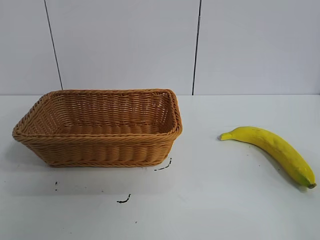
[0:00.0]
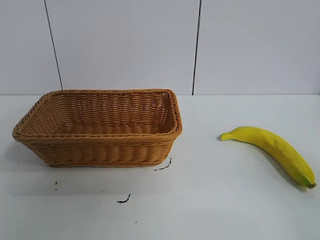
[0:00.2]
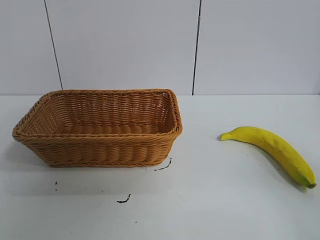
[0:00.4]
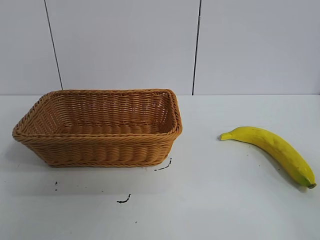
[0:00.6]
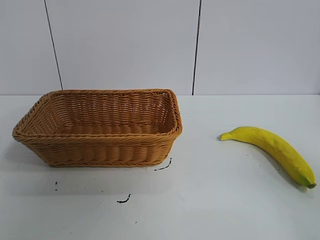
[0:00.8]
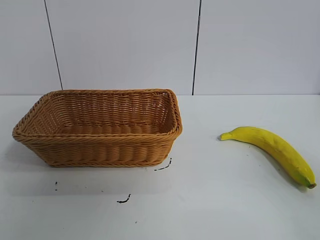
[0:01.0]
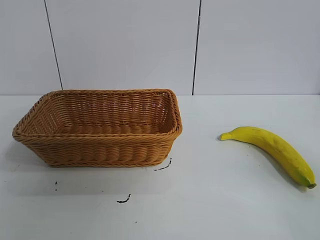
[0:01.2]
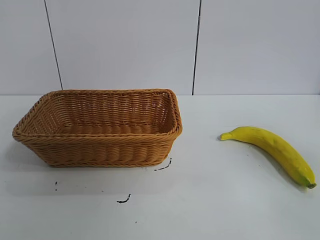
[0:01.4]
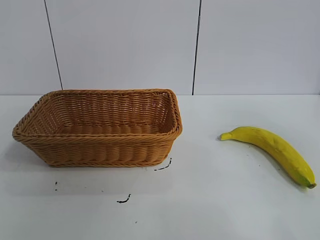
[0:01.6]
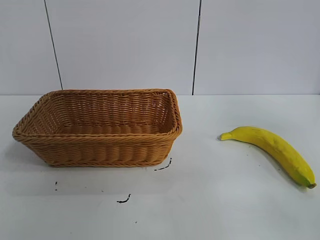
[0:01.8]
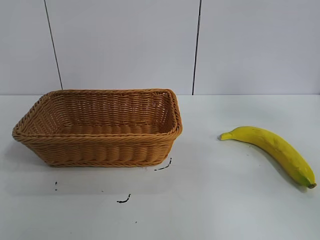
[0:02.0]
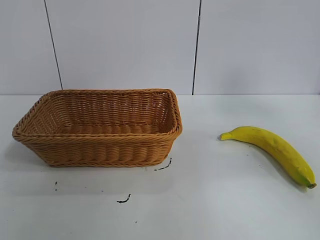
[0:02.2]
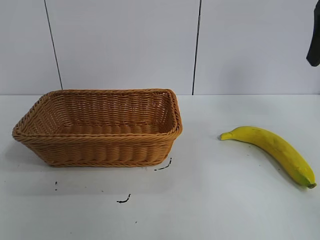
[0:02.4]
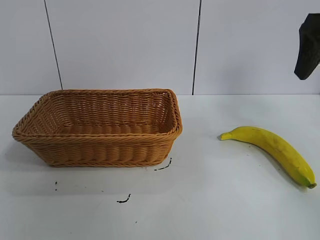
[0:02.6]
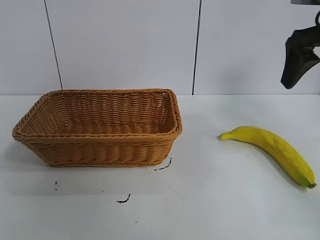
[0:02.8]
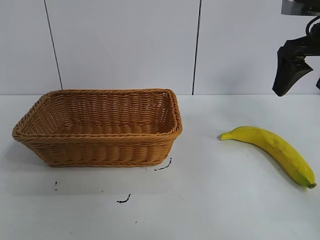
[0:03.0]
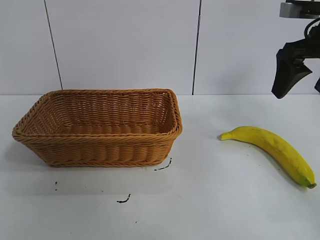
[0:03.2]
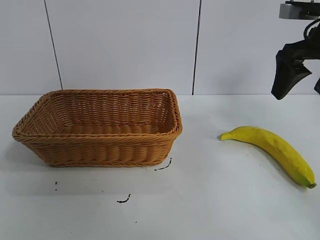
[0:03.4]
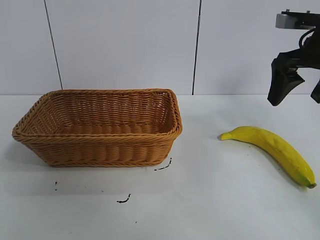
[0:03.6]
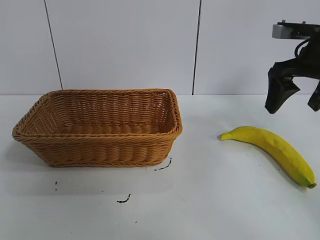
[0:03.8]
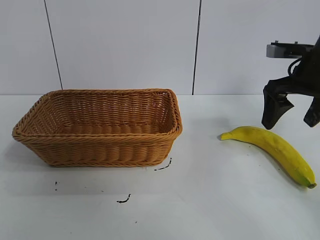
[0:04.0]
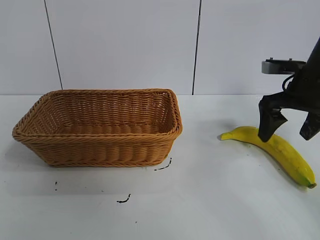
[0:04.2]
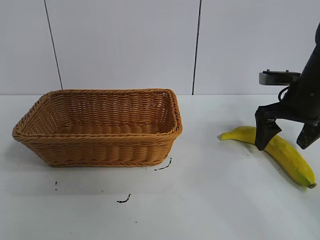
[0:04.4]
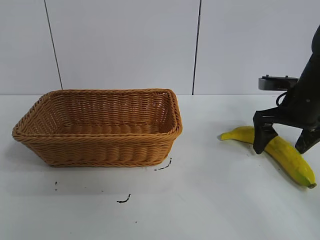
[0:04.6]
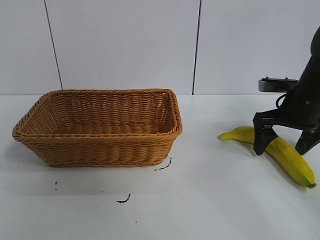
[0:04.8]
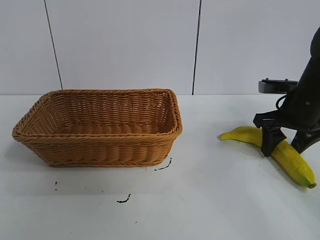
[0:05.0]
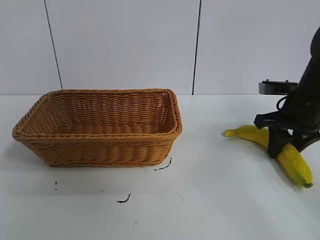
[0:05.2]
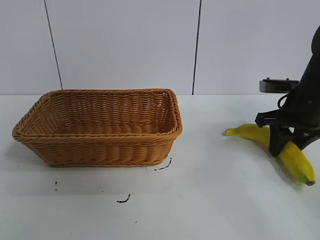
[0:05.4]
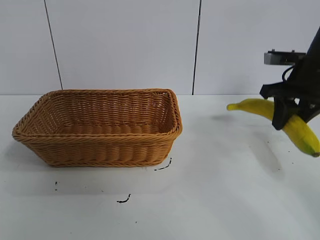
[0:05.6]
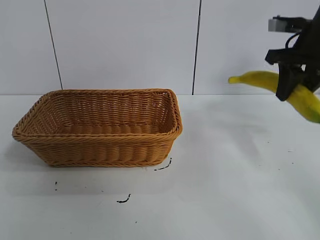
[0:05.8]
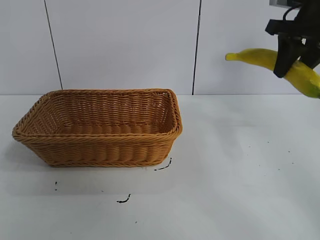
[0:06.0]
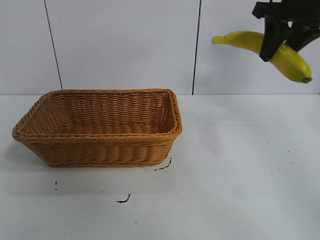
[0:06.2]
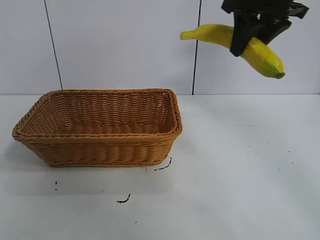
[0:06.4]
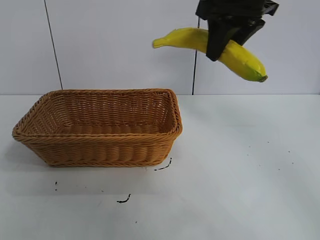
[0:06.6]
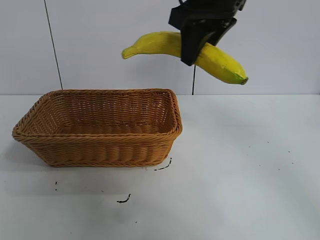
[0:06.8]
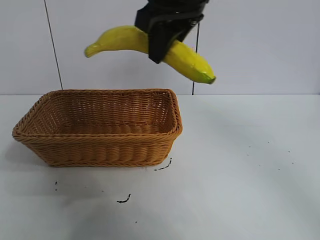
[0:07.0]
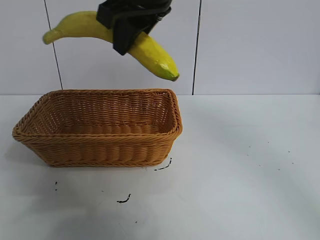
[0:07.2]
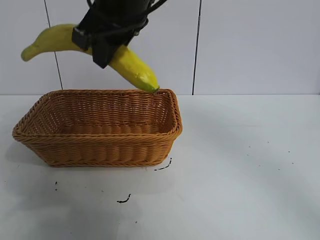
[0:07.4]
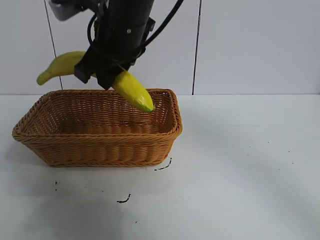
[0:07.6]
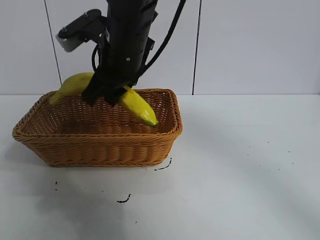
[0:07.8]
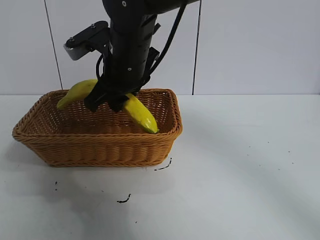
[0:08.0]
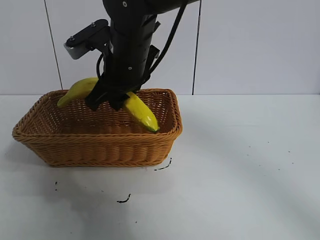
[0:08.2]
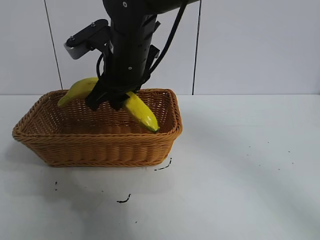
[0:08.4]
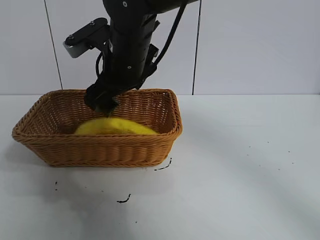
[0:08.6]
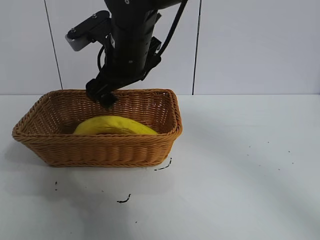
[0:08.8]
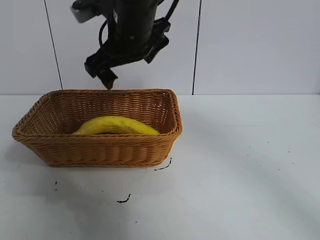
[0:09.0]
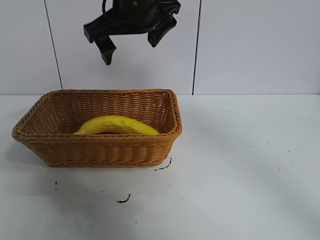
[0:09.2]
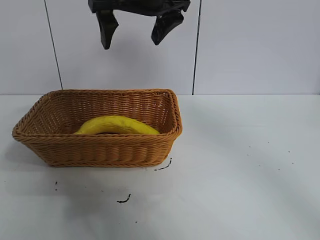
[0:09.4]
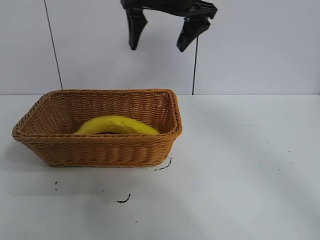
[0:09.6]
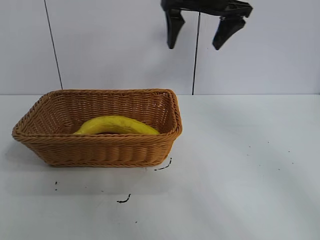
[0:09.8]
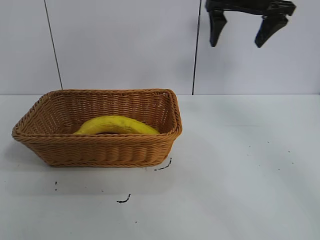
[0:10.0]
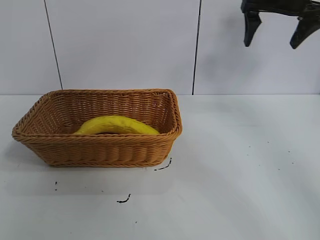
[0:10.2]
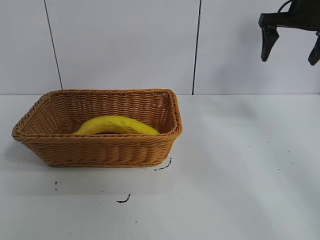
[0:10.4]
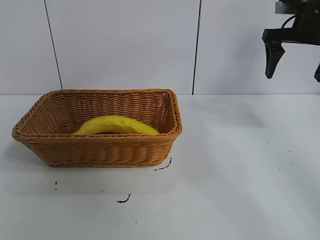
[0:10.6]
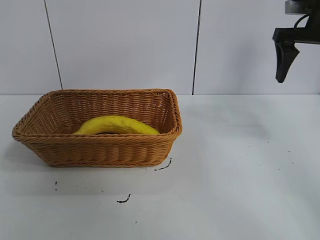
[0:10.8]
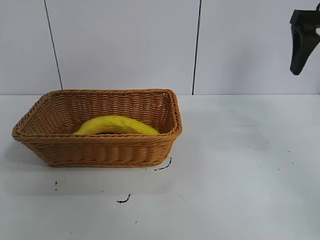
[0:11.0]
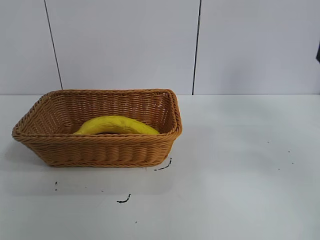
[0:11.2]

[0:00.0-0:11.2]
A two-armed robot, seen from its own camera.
Task of the whole recording: pick up the banana and put it into the basket.
Step, 0:01.0 to 0:05.4: Grasp the banana with right gripper.
Step, 0:05.6 to 0:08.6: Place the banana in the basket with right gripper.

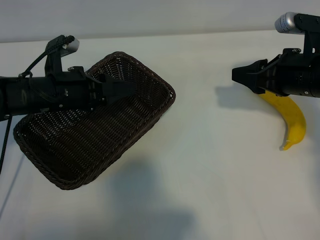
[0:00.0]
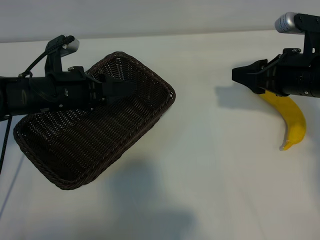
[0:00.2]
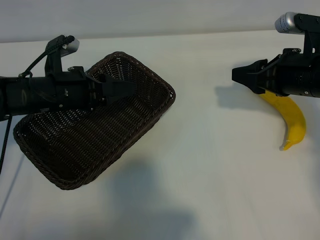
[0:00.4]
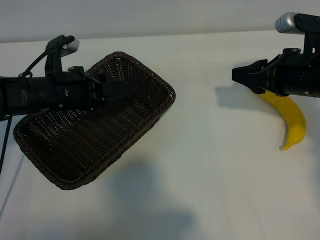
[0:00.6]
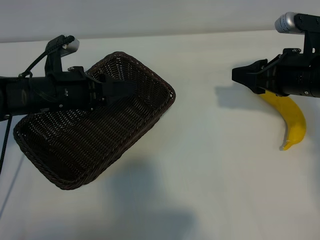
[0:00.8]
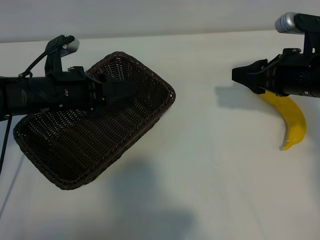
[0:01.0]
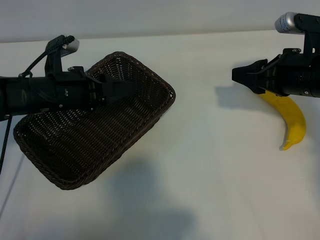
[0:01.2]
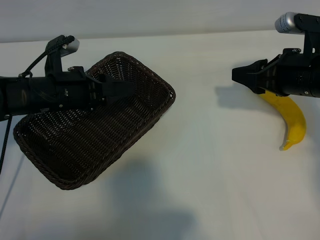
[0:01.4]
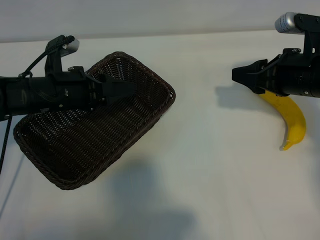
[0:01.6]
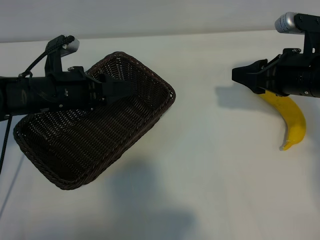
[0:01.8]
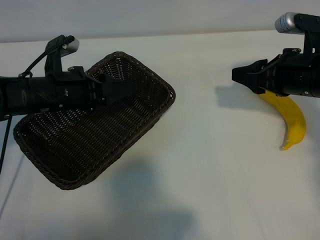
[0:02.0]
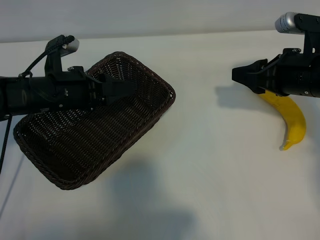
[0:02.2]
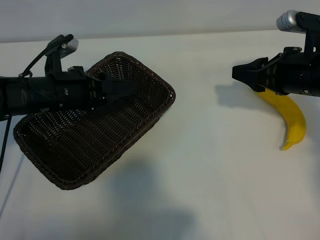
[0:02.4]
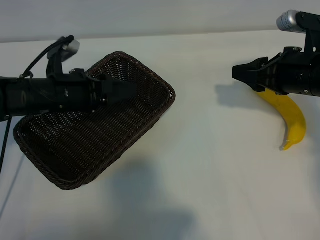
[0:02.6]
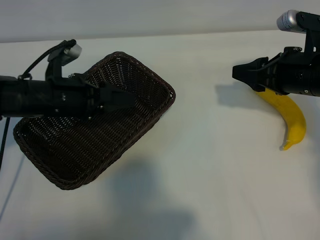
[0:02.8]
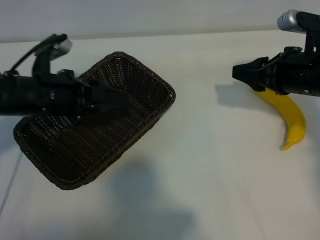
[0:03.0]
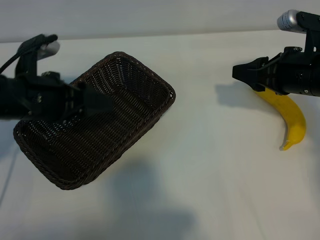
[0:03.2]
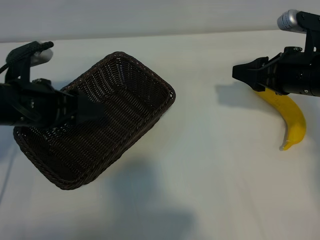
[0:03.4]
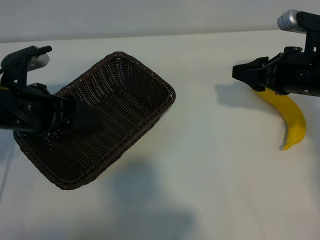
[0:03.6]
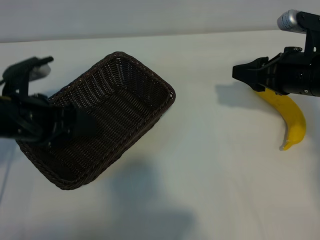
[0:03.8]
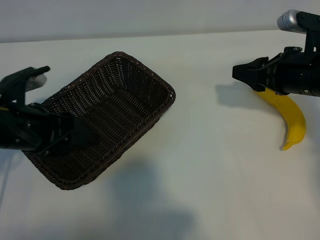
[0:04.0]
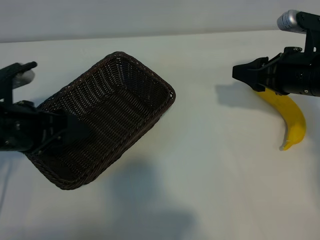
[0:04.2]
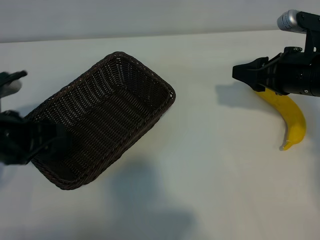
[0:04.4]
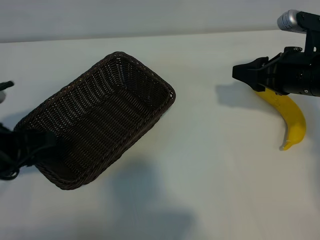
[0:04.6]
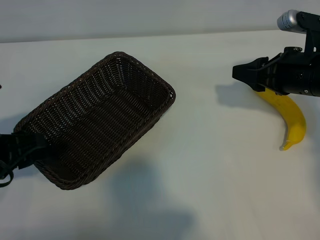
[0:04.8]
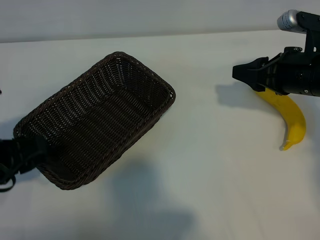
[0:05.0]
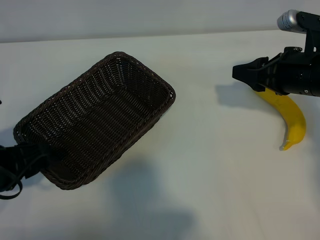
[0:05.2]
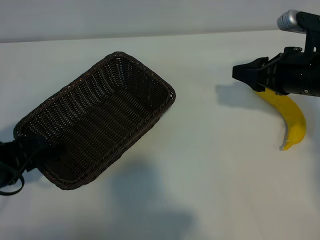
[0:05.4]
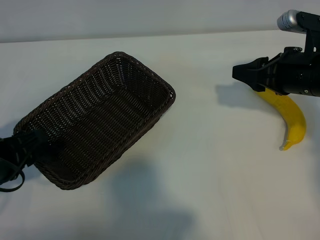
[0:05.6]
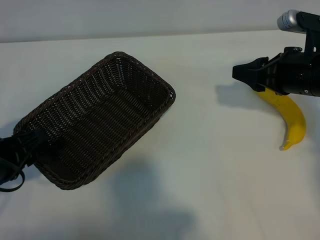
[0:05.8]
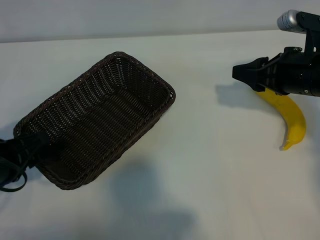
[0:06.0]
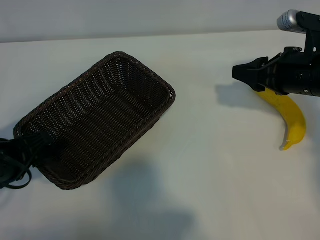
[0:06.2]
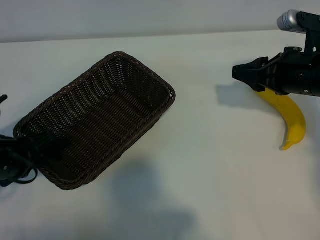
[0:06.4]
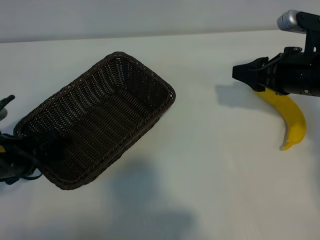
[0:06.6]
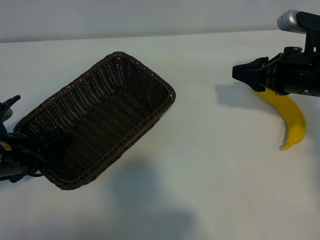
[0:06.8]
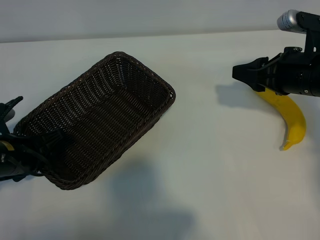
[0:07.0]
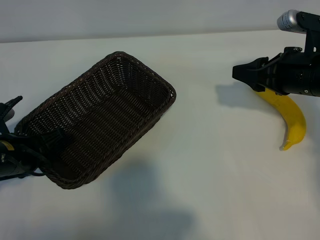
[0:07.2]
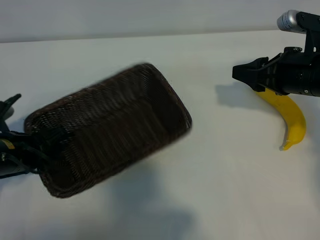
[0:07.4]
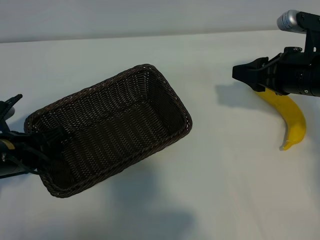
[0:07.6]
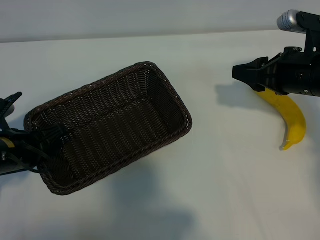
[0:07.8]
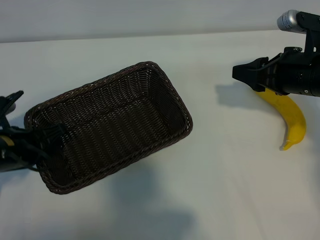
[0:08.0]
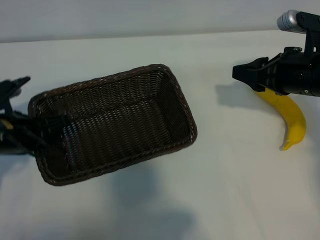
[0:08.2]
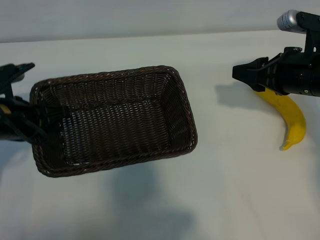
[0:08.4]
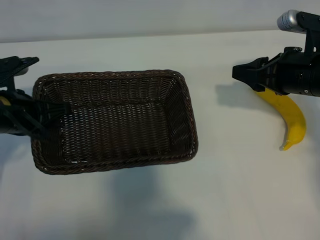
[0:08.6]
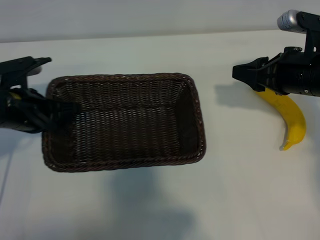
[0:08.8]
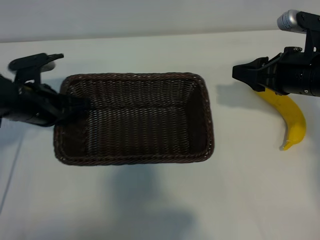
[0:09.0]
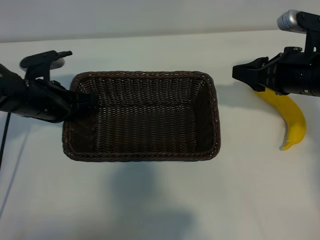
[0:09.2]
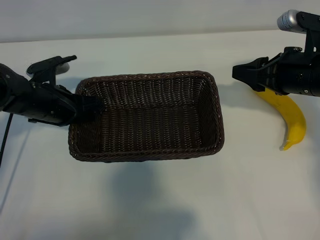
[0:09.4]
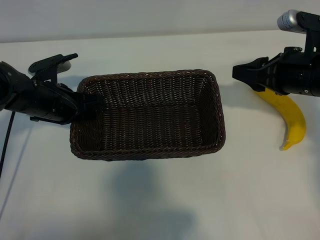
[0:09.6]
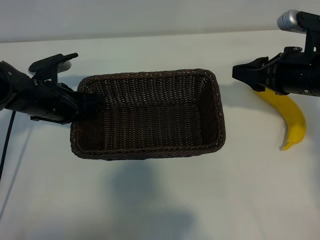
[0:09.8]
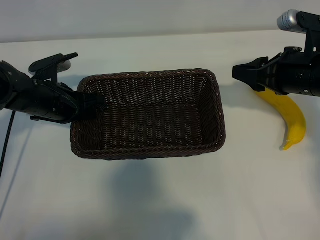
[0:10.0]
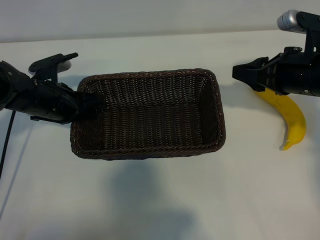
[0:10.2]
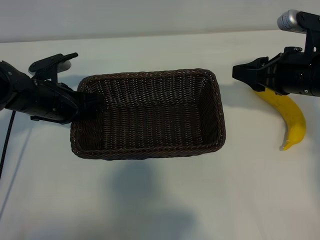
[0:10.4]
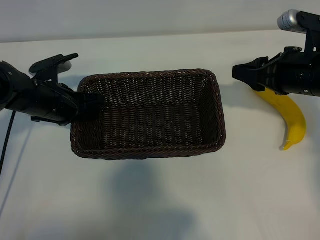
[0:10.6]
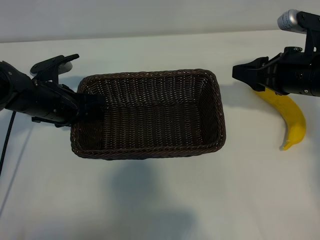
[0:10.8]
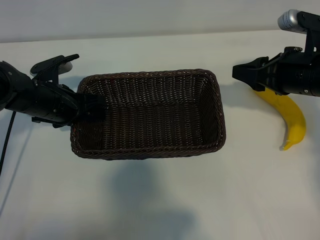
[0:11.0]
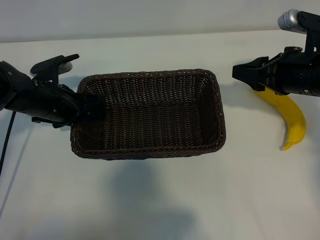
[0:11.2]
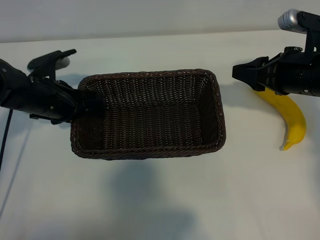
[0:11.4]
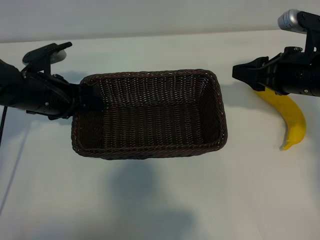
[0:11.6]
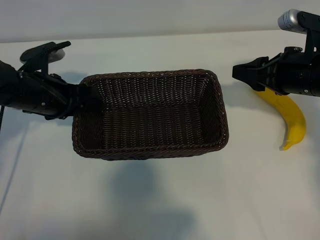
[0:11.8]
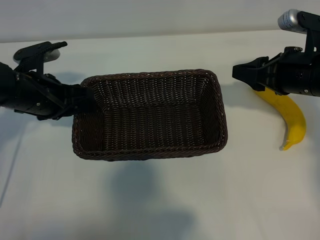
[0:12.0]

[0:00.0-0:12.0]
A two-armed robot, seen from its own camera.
Task of the whole recording: pick up the banana and put it into the basket.
Step, 0:02.0 to 0:07.4: Grasp the basket with the left gripper.
